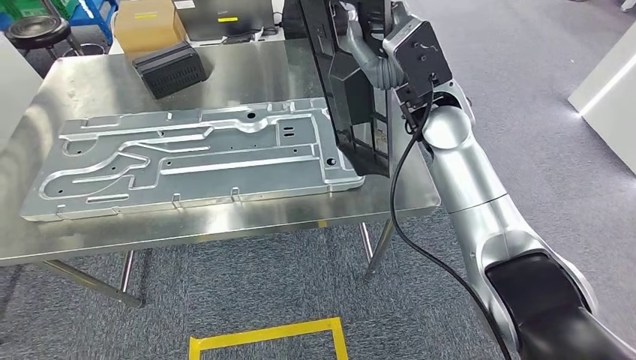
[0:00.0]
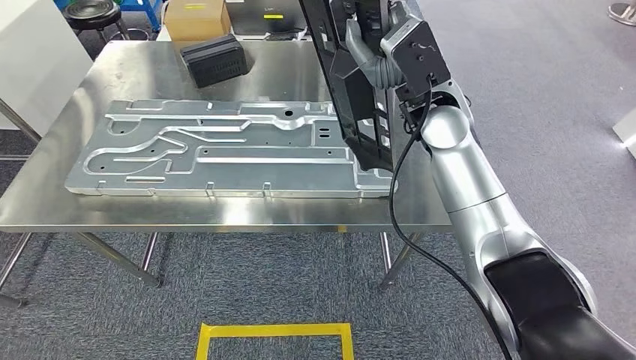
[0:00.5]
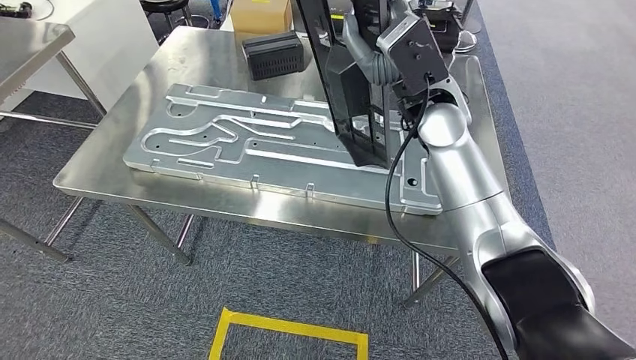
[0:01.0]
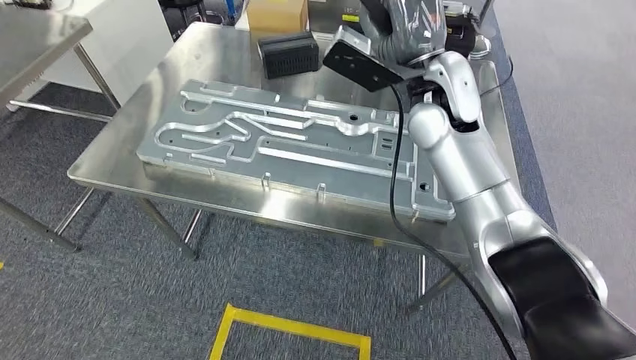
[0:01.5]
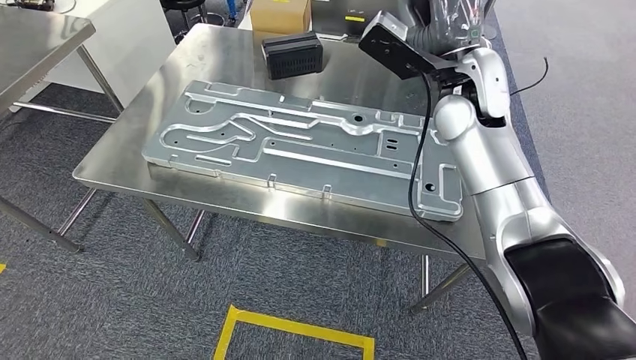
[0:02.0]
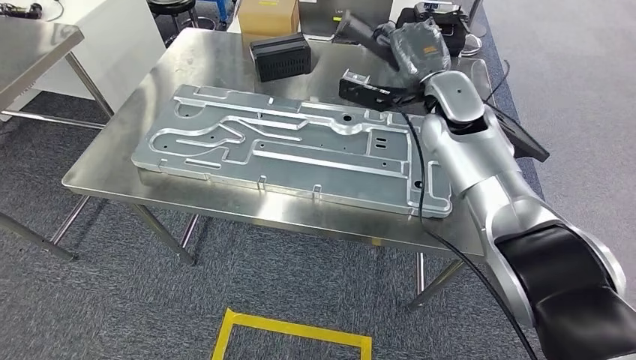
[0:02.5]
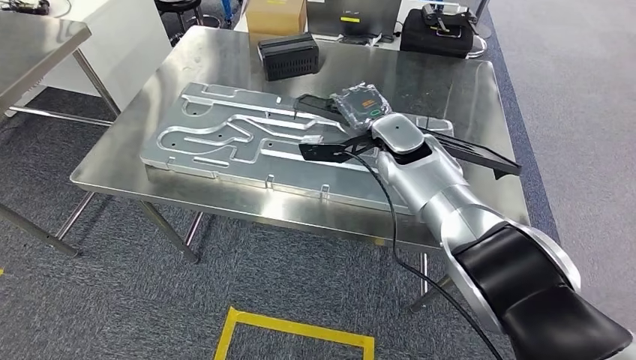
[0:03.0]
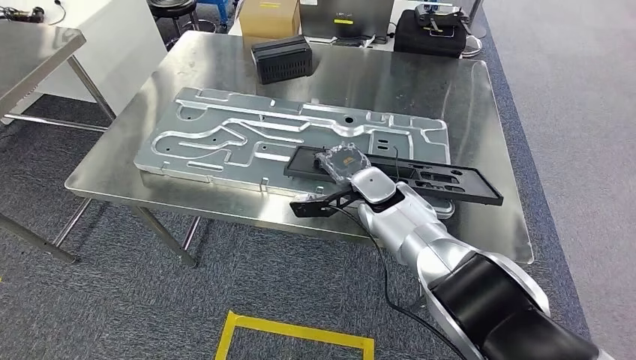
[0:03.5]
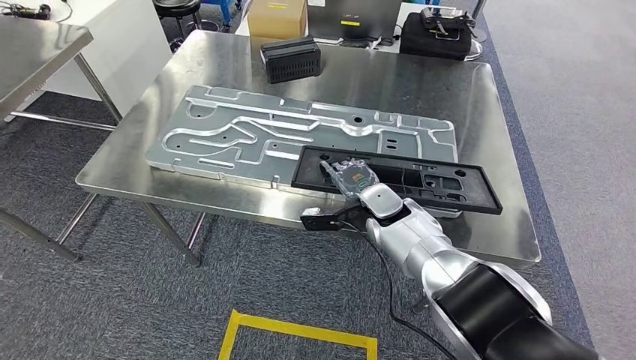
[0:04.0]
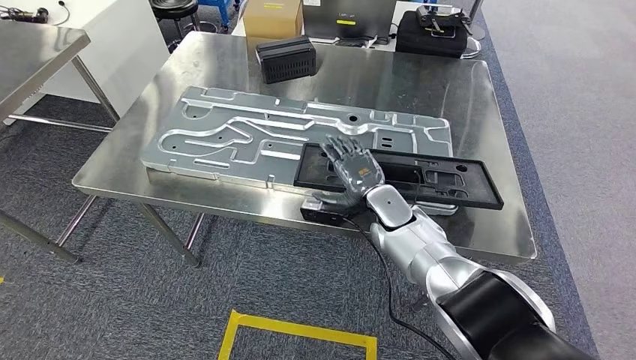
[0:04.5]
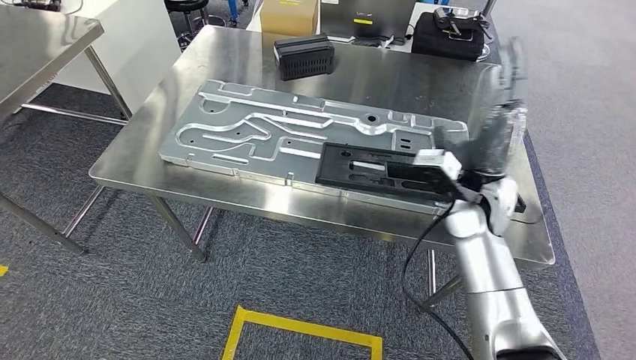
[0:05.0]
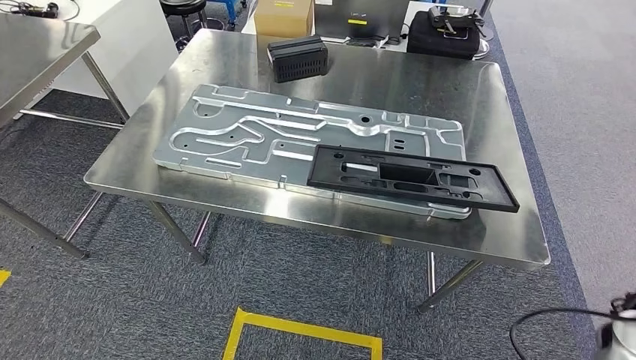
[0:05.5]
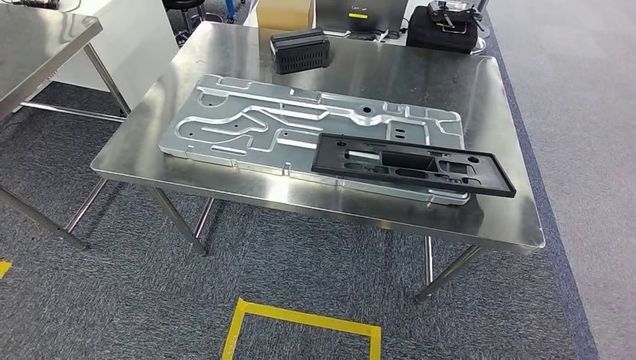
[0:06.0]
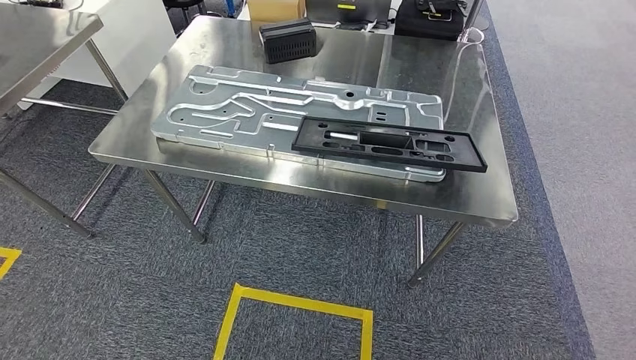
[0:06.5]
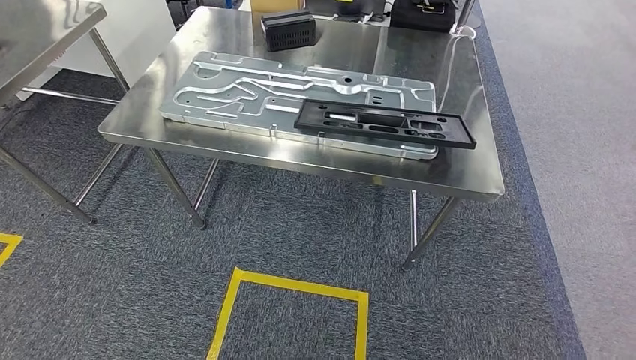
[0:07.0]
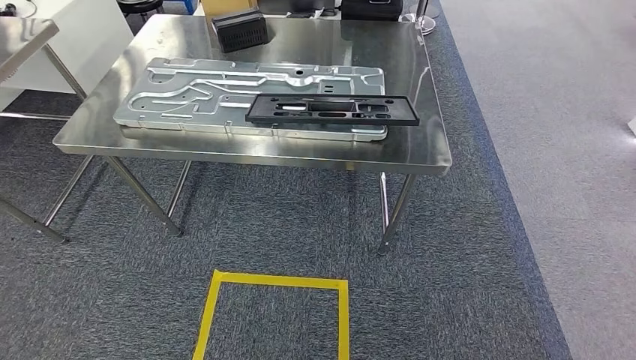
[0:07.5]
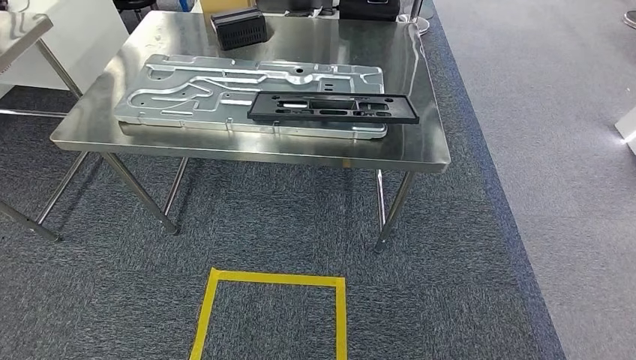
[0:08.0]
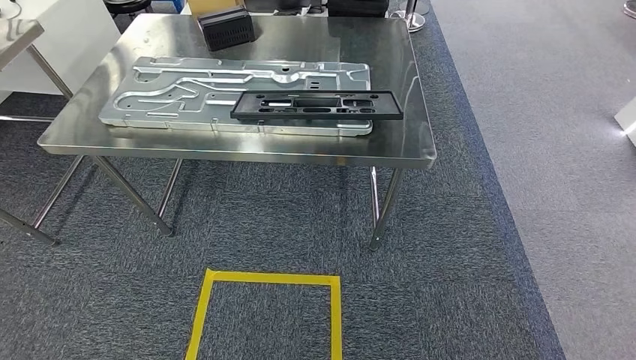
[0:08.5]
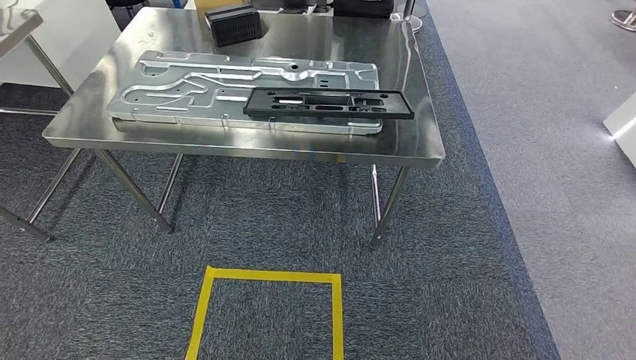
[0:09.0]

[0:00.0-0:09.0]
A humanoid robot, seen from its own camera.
Step, 0:00.0 to 0:06.0: Insert the large material into the corresponding slot on the workbench.
Step, 0:06.5 to 0:09.0: Move to the initial position of the shelf.
